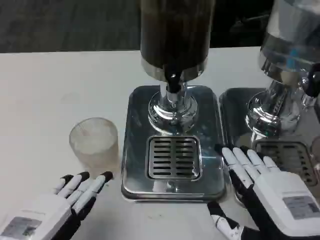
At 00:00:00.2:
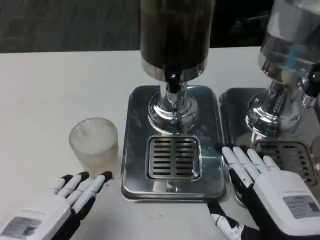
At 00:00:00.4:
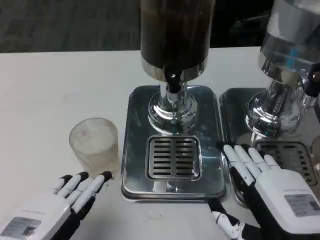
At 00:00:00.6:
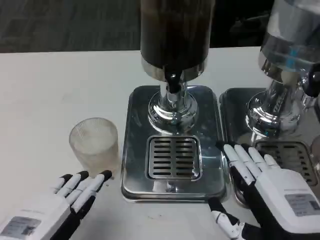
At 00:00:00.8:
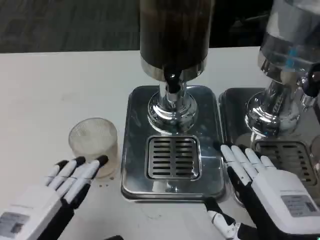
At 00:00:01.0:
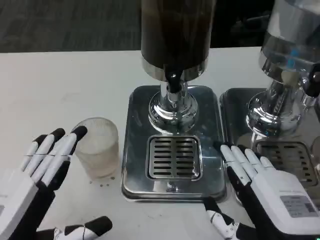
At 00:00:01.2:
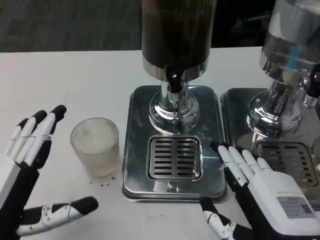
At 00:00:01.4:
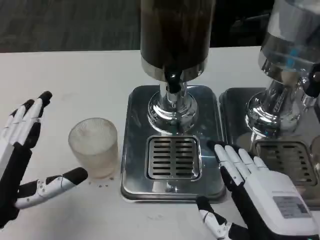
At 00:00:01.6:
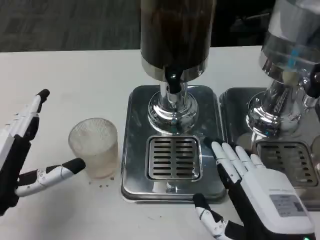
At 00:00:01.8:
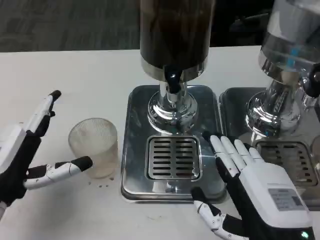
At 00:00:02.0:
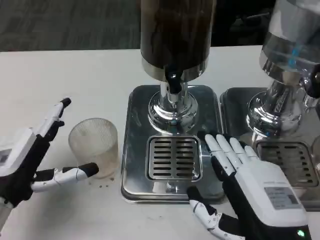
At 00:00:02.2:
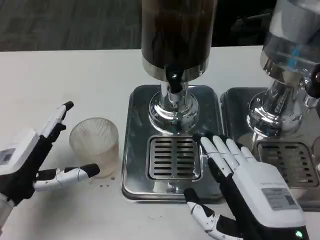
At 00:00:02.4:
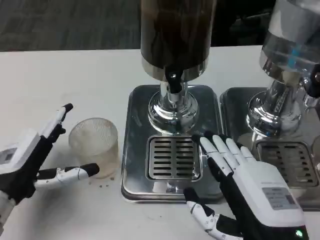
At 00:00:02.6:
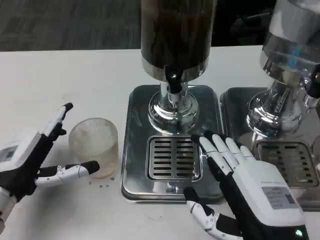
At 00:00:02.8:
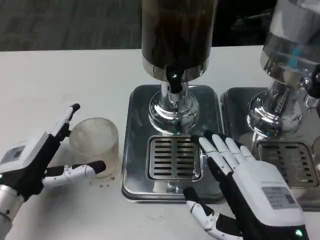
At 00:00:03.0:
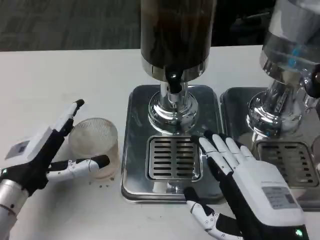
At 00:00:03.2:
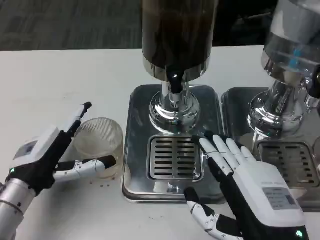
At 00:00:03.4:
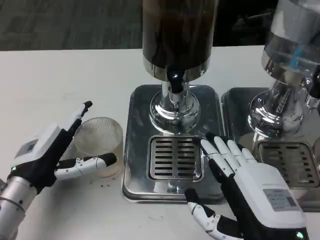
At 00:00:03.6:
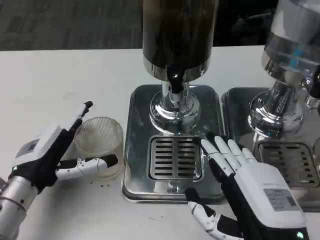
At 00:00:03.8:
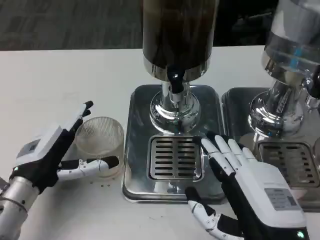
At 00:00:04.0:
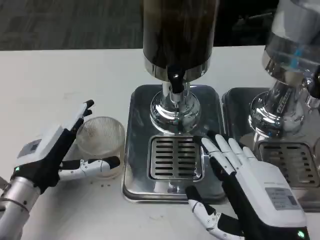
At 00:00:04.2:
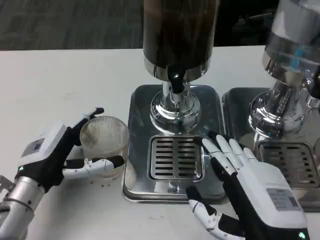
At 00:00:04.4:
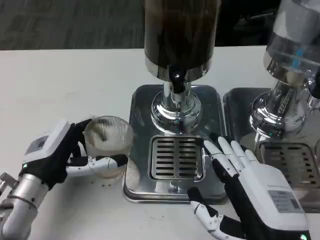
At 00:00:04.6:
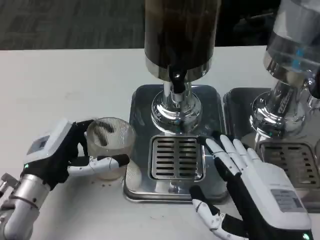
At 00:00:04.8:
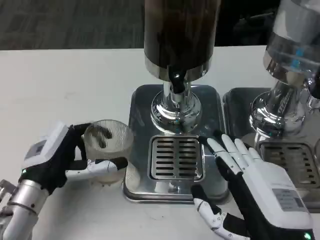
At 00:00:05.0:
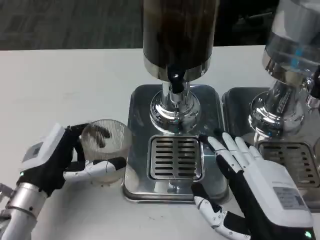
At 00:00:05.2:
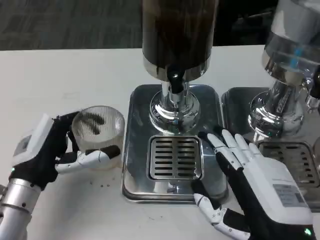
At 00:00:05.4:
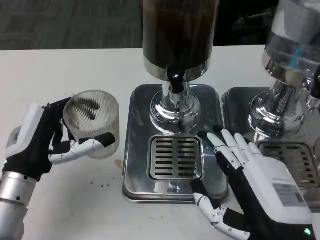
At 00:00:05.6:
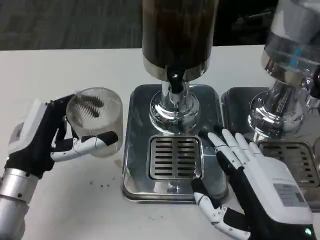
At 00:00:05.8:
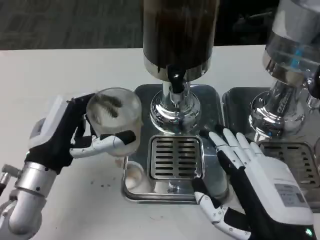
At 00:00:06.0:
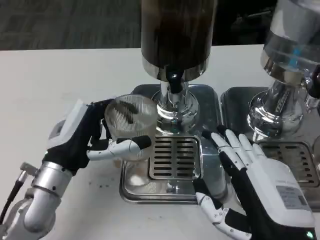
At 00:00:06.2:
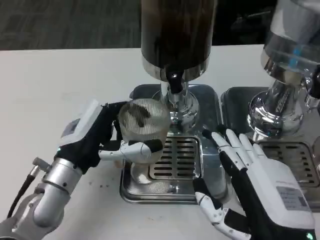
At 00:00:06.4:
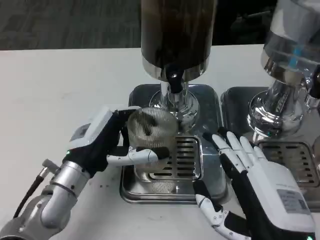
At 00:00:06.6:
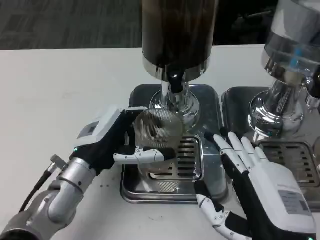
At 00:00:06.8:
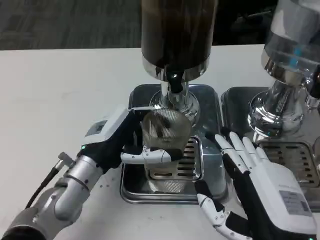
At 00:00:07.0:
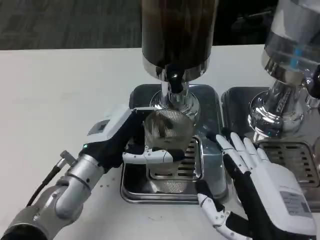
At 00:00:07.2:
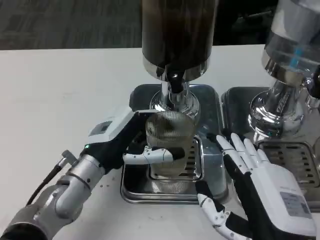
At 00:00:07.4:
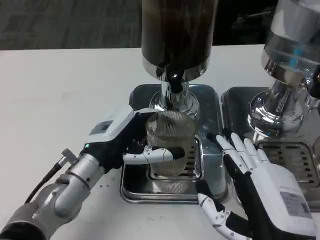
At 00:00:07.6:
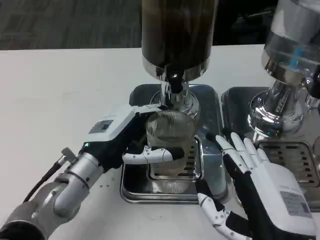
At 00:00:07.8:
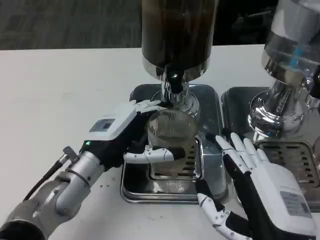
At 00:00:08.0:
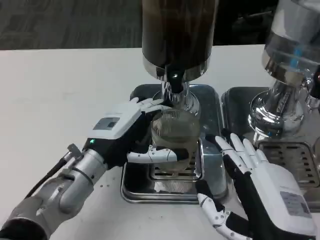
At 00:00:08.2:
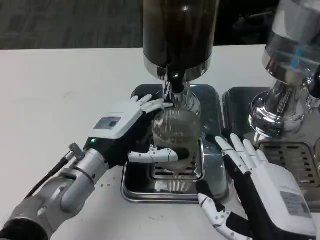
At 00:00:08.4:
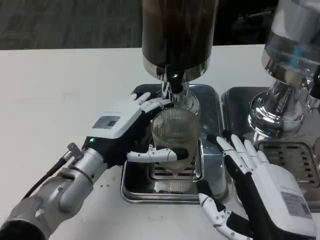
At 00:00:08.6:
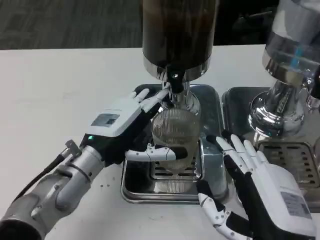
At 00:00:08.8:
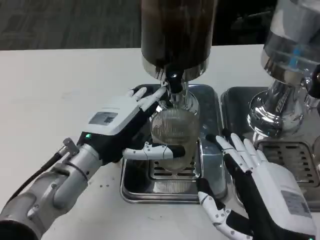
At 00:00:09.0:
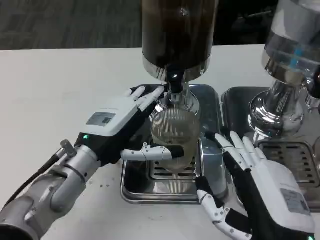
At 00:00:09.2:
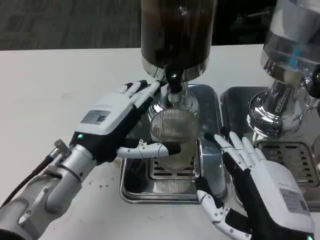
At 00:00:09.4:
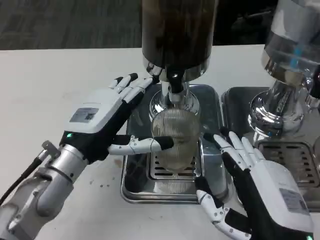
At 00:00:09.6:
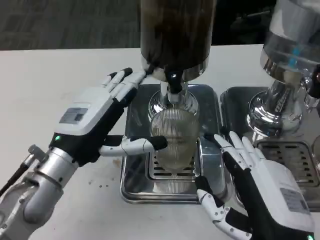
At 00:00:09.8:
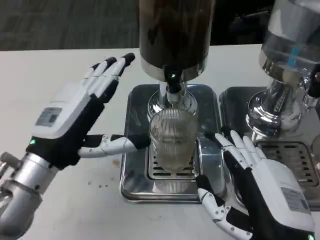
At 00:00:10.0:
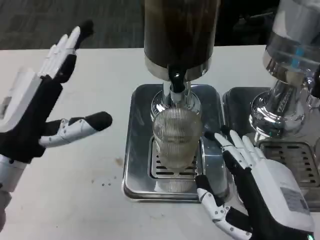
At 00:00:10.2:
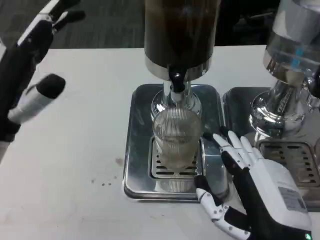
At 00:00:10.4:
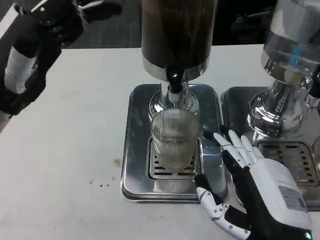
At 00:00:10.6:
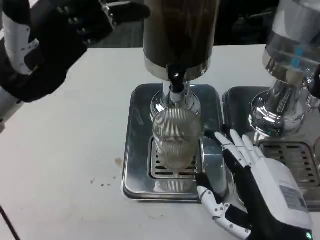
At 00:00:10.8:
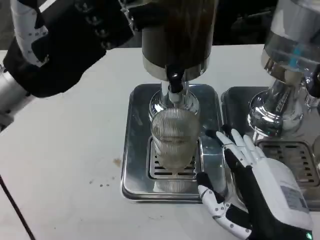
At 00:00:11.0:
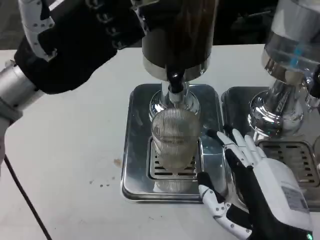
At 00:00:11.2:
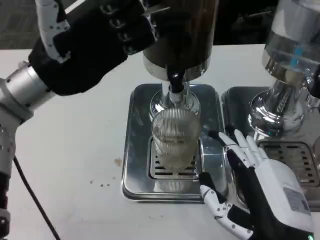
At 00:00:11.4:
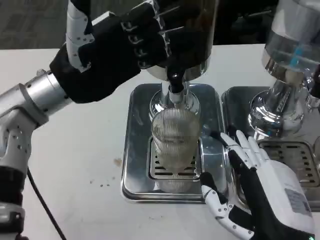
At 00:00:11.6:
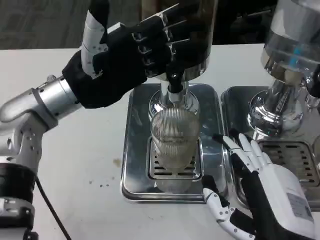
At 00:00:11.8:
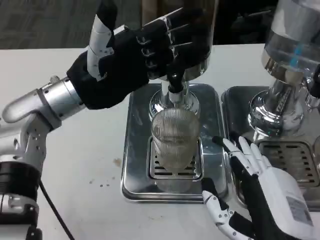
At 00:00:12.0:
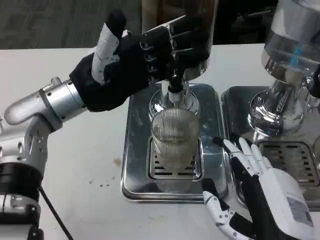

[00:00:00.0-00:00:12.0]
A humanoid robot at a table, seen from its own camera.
Task of the whole recording: Grasp the cup under the faucet to collect the drink, then remove the cup.
00:00:00.0 to 00:00:01.6: The left hand goes roughly 10 cm forward.
00:00:01.6 to 00:00:03.0: The left hand ends up about 5 cm from where it was.
00:00:07.6 to 00:00:09.0: There are only small adjustments of the hands.
00:00:09.0 to 00:00:10.4: The left hand travels upward and to the left by approximately 15 cm.
00:00:10.4 to 00:00:12.0: The left hand travels forward and to the right by about 10 cm.

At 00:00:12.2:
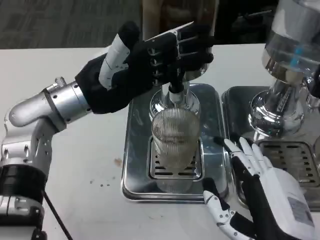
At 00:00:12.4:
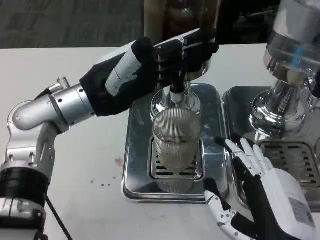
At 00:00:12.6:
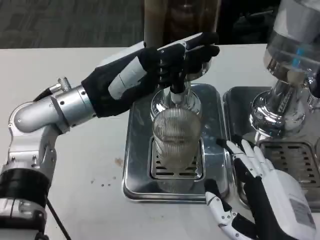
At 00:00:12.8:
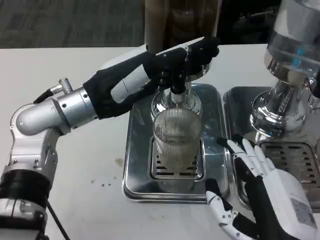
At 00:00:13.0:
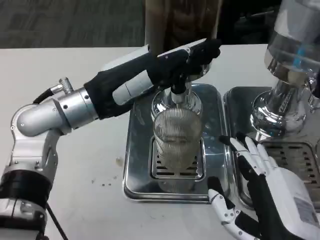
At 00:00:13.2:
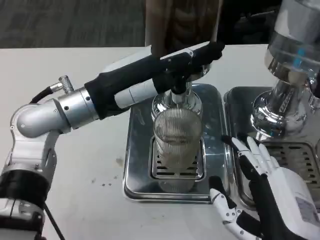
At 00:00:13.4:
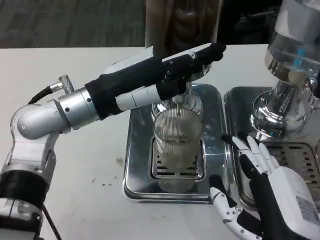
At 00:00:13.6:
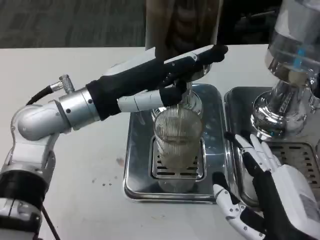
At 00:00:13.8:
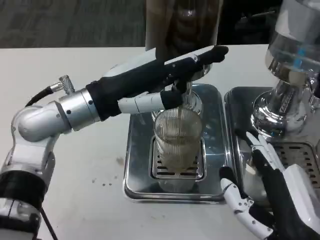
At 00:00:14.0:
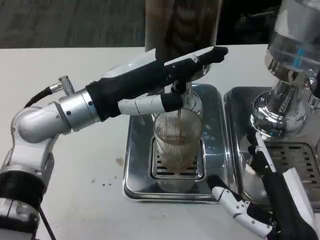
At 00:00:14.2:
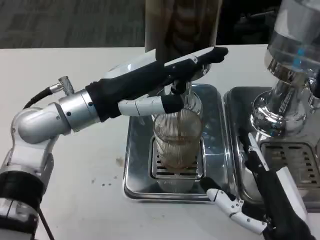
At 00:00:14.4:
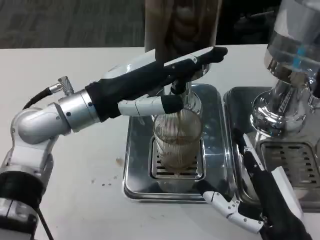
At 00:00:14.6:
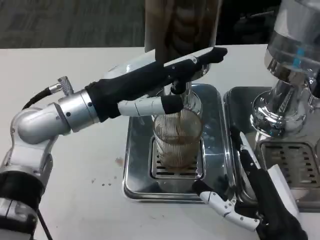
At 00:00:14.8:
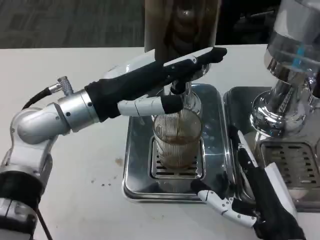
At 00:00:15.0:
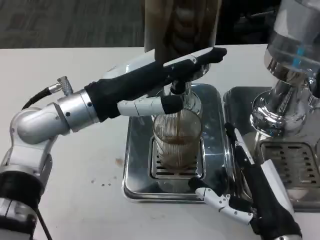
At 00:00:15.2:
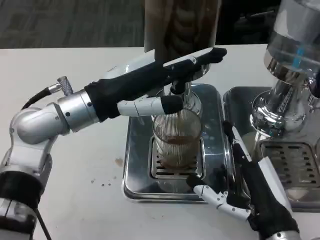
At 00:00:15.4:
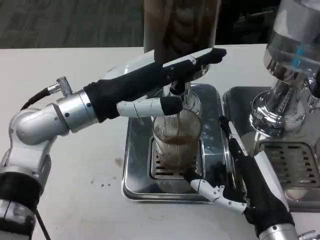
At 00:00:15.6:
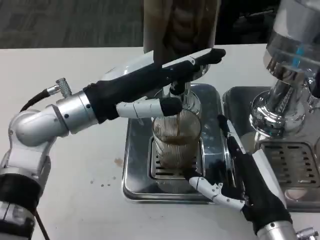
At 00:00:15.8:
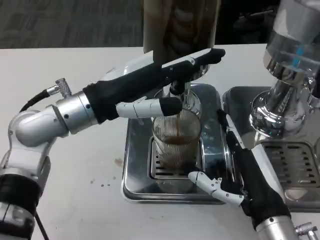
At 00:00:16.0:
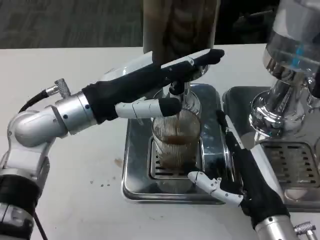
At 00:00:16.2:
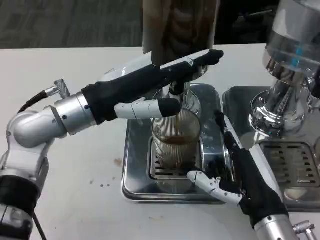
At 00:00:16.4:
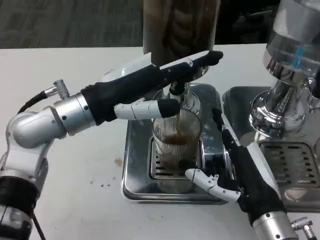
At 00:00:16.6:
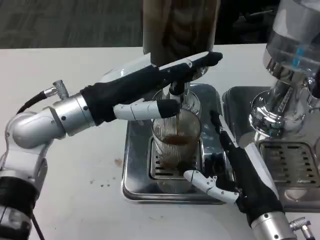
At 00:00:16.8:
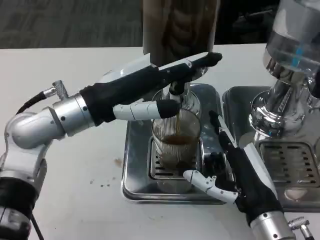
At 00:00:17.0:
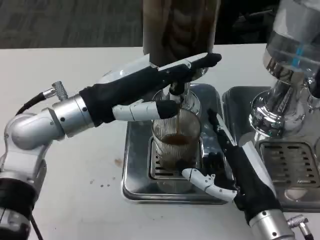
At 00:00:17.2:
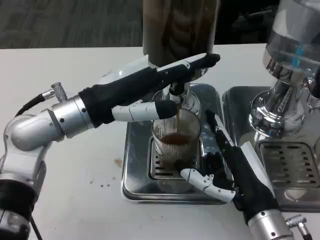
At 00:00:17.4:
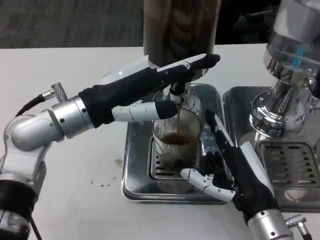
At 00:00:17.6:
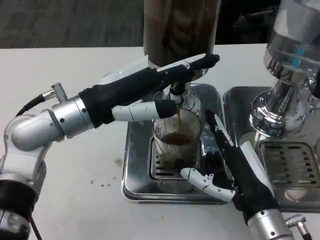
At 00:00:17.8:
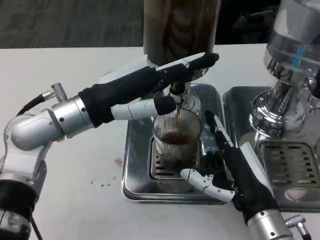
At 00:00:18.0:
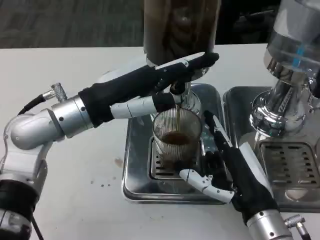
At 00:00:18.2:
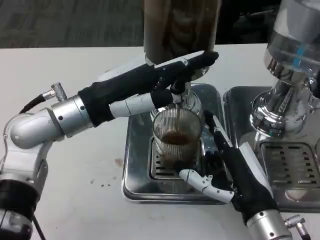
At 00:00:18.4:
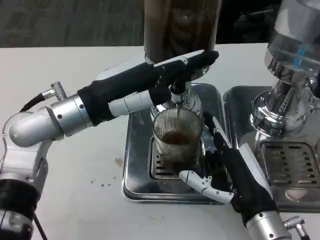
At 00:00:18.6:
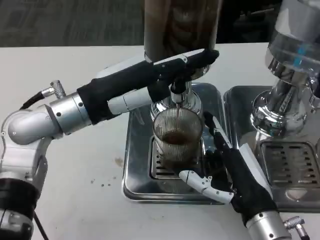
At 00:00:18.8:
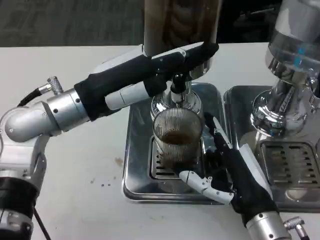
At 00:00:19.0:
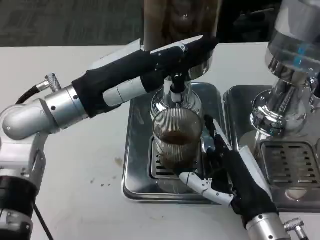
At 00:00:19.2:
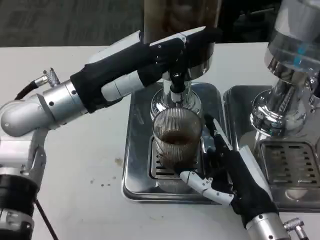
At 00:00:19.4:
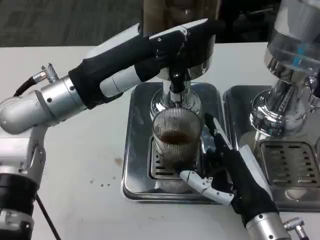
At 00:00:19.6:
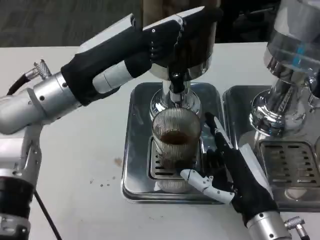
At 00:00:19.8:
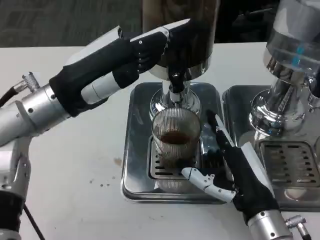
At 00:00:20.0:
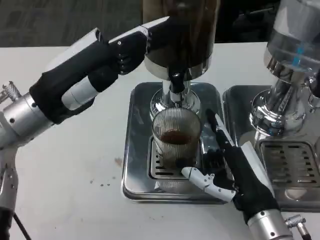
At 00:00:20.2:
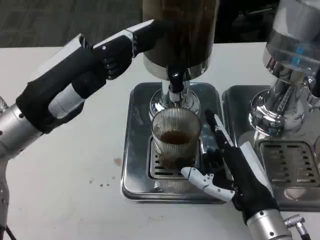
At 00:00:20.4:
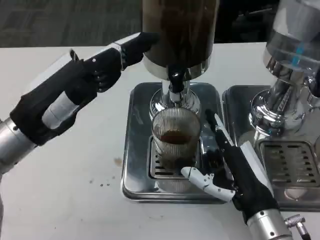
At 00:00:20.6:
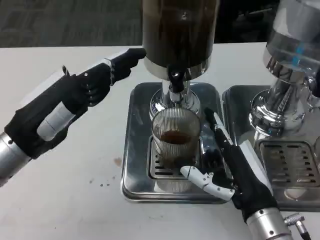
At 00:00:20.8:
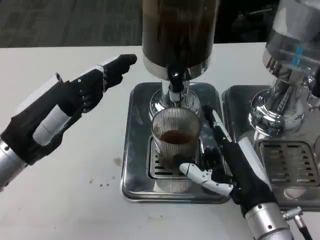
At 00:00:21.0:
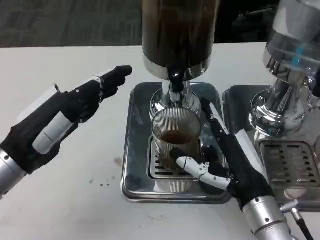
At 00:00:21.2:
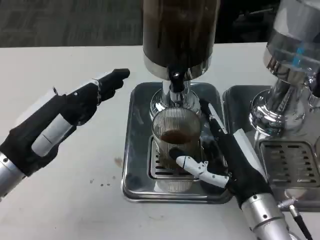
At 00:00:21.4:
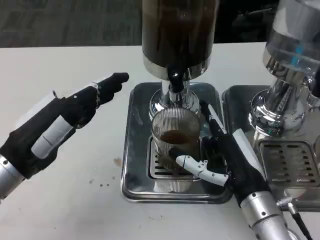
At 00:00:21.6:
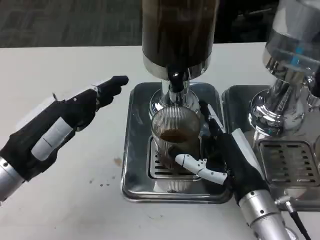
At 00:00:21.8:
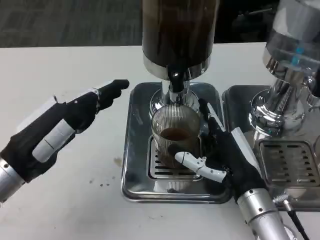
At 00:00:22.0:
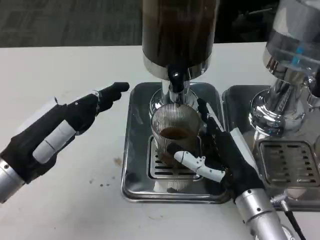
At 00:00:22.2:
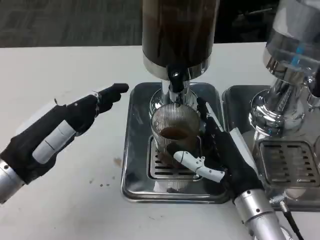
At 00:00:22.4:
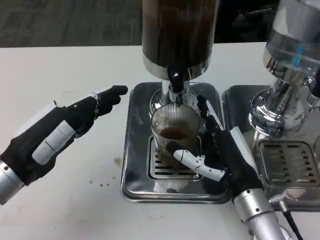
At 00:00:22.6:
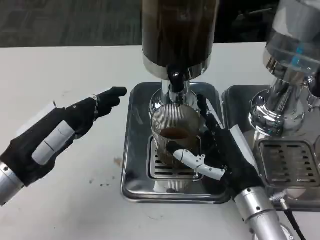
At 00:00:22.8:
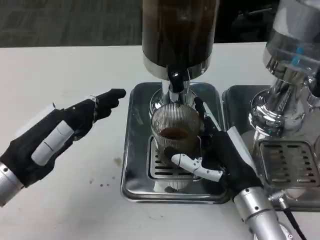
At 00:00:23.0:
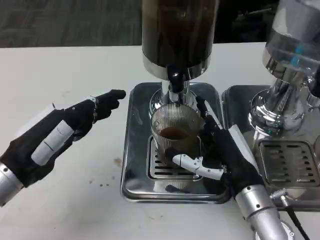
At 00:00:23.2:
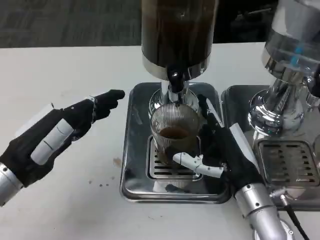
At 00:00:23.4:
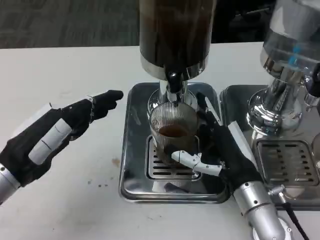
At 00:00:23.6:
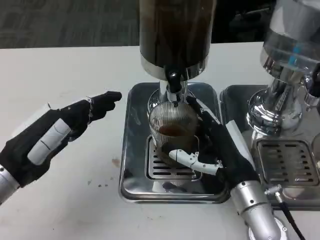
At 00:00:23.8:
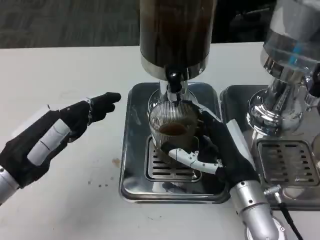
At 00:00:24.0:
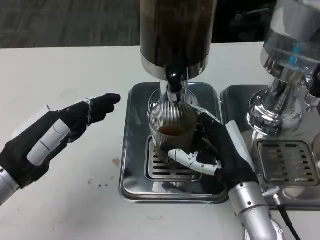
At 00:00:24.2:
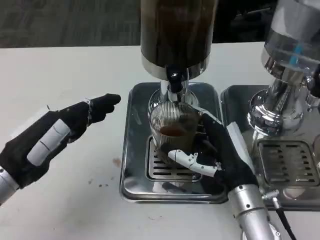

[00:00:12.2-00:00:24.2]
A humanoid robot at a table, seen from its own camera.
Task of the whole recording: Grasp the cup under the faucet to collect the drink, then remove the cup.
00:00:13.8 to 00:00:15.2: The right hand goes roughly 5 cm forward.
00:00:15.2 to 00:00:18.2: There are only small adjustments of the hands.
00:00:19.8 to 00:00:21.2: The left hand goes about 10 cm backward, downward and to the left.
00:00:21.2 to 00:00:24.2: There are only small adjustments of the hands.
